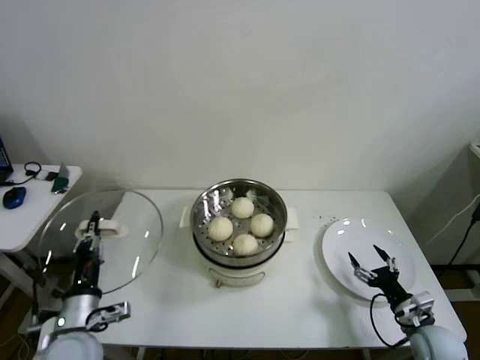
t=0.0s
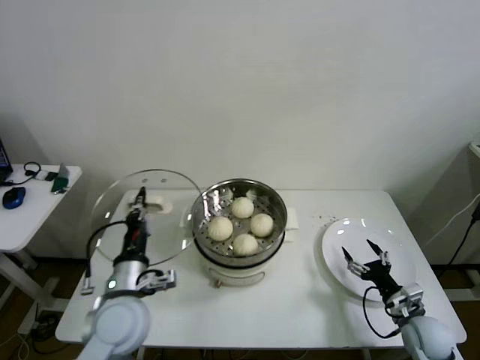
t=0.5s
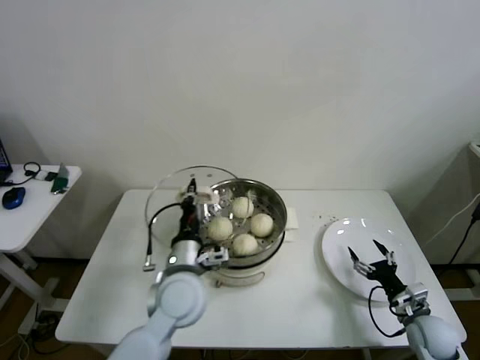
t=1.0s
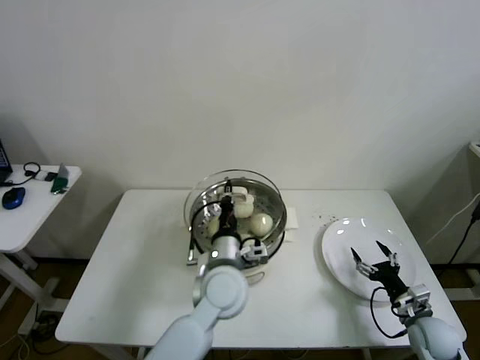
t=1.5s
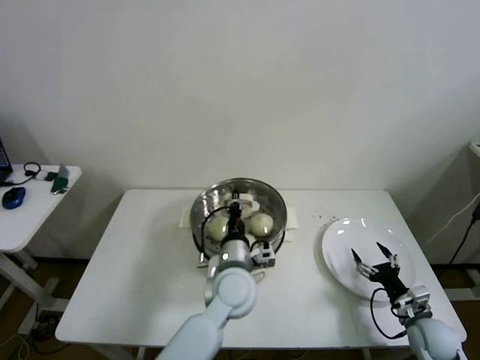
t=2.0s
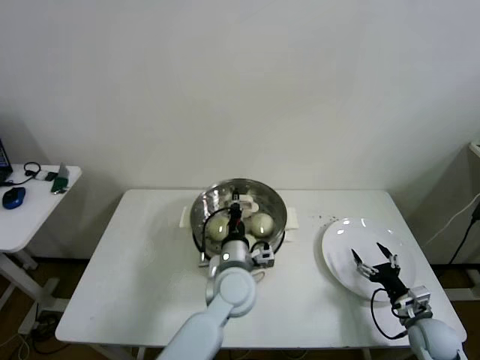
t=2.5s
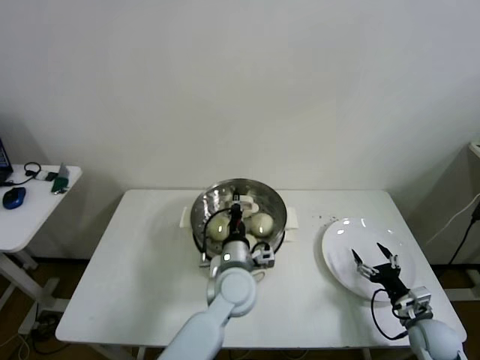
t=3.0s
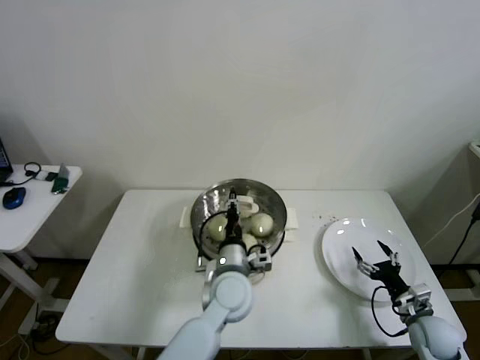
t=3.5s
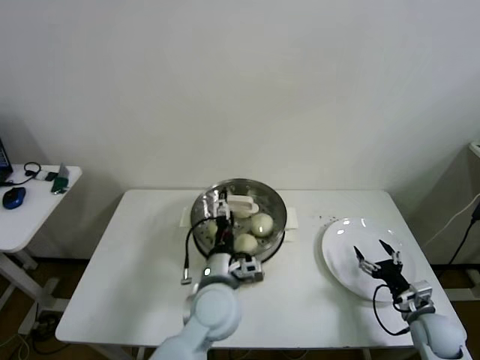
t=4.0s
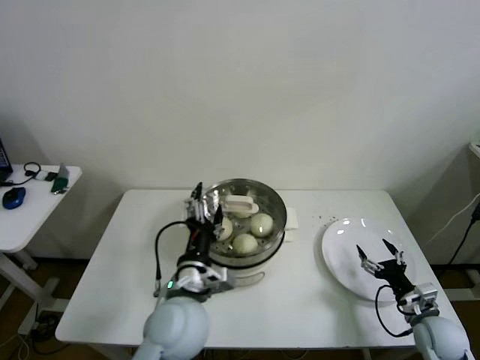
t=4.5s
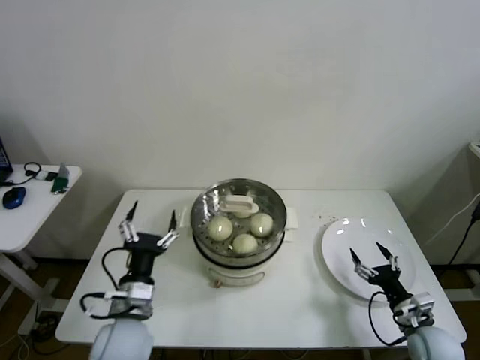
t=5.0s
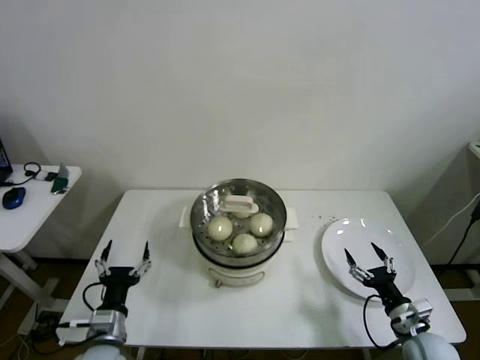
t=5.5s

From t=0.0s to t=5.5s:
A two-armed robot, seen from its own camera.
Step, from t=0.0s to t=4.0s: Place the pot lid on the steamer with left gripper.
From t=0.0s to t=2.0s: The left gripper is displaced to the right and forward by about 30 cm.
From t=2.0s to t=3.5s: There are only small adjustments of the grippers.
From t=3.5s to t=5.5s: The right gripper moves some 5 cm, while the left gripper goes about 30 cm to the left and backward, and opens up.

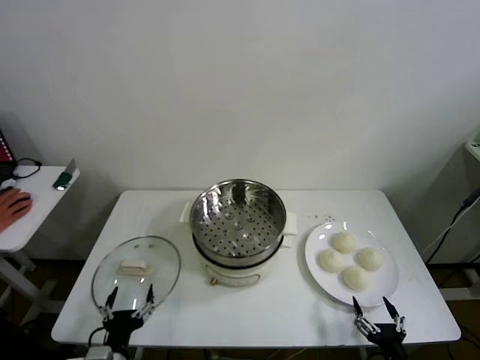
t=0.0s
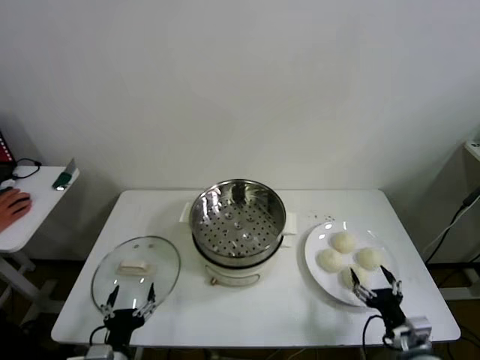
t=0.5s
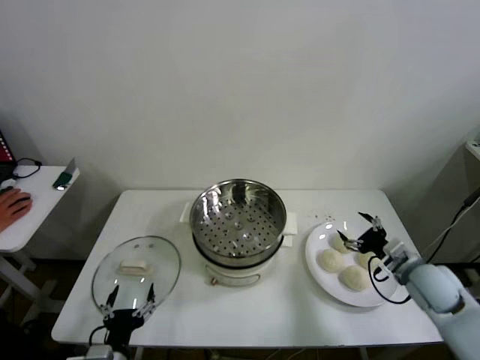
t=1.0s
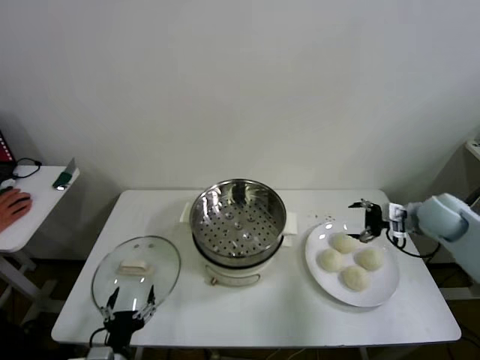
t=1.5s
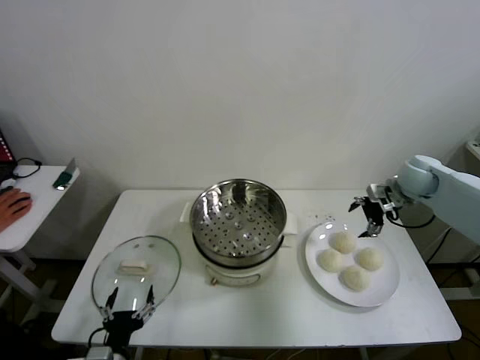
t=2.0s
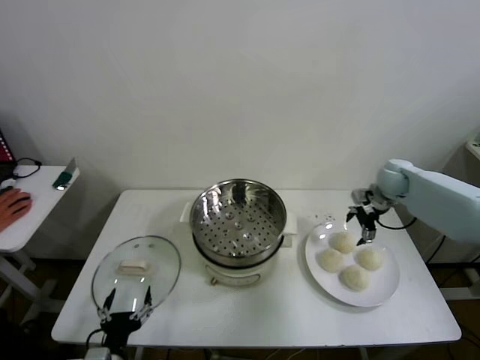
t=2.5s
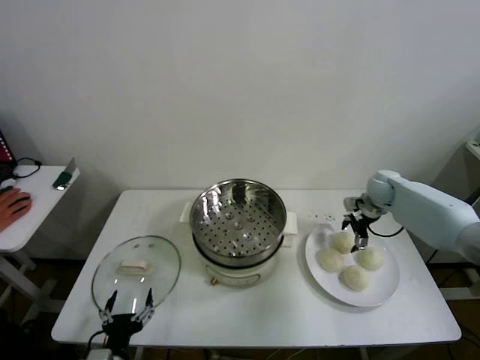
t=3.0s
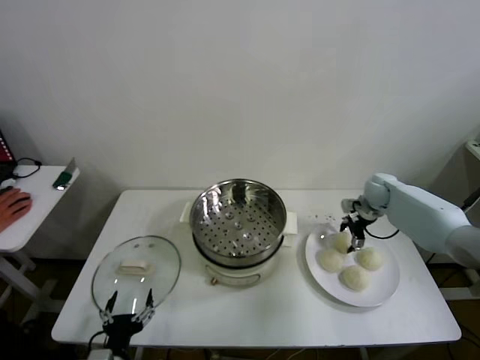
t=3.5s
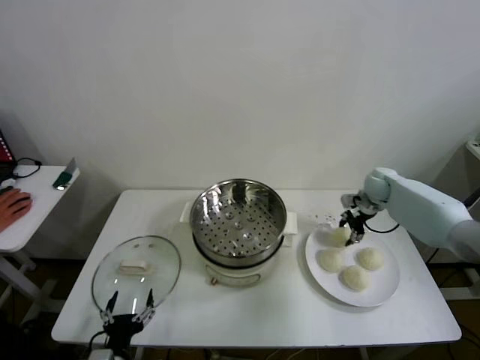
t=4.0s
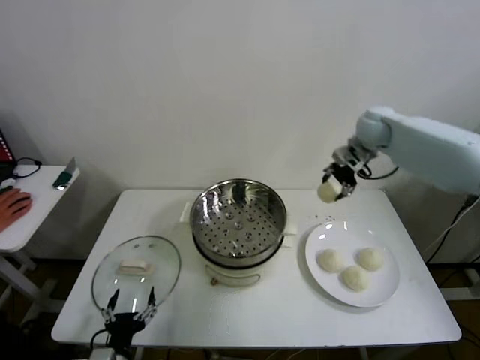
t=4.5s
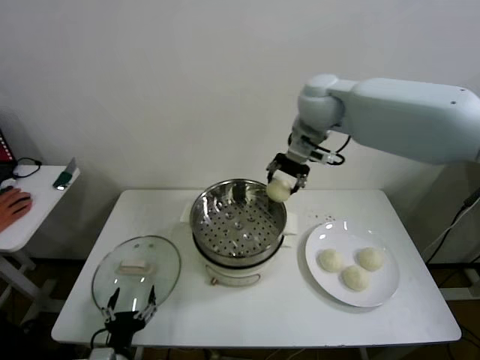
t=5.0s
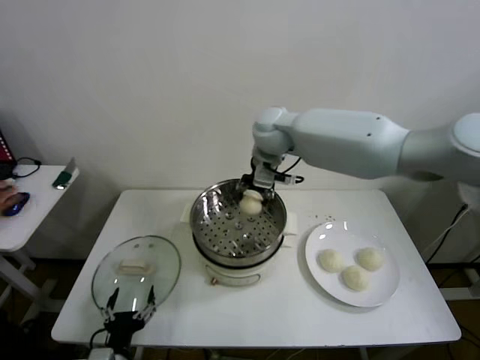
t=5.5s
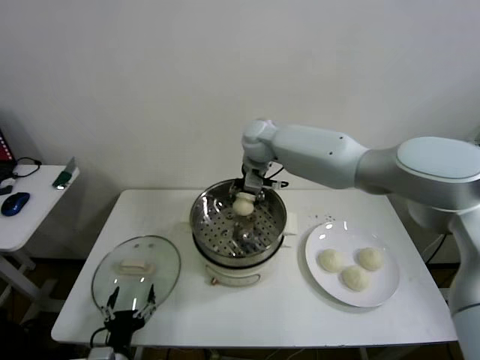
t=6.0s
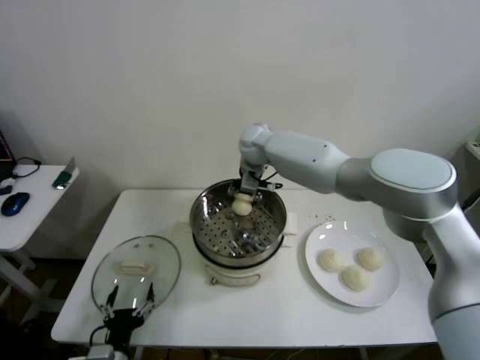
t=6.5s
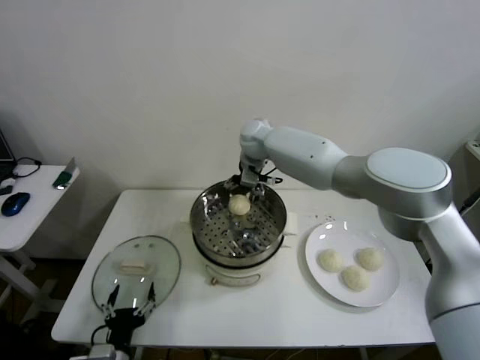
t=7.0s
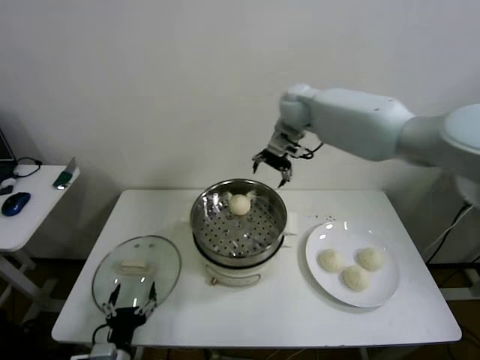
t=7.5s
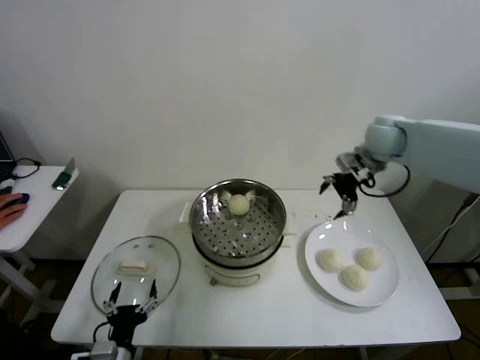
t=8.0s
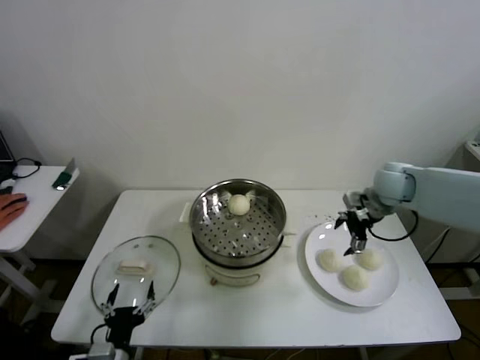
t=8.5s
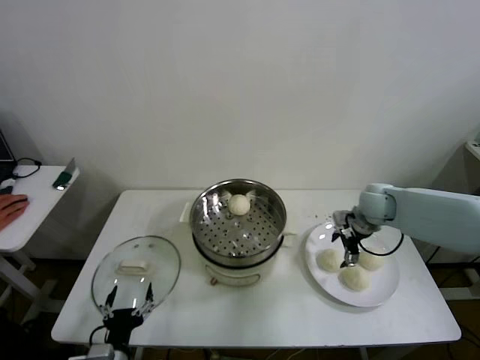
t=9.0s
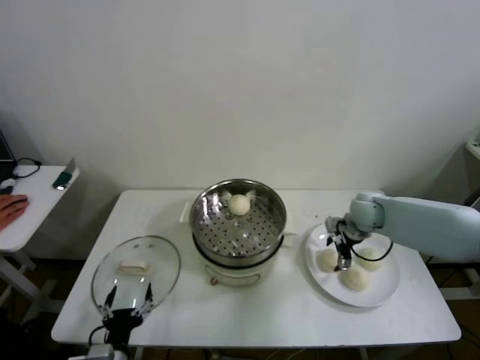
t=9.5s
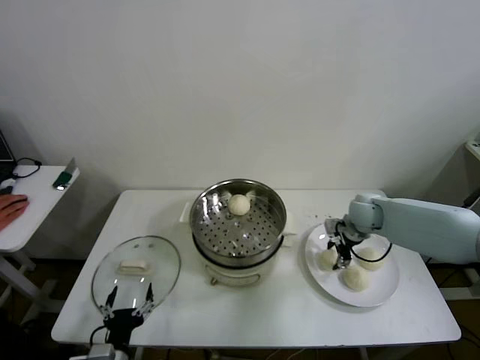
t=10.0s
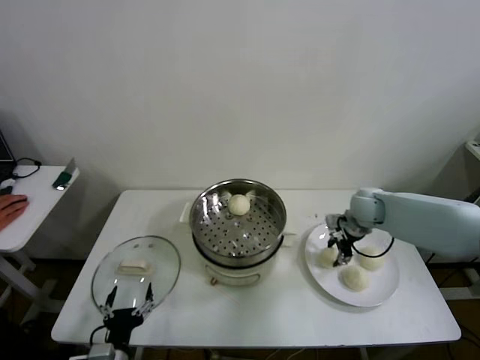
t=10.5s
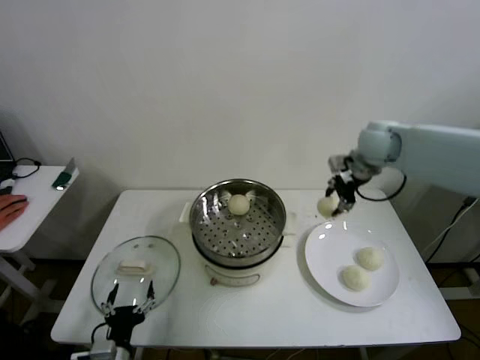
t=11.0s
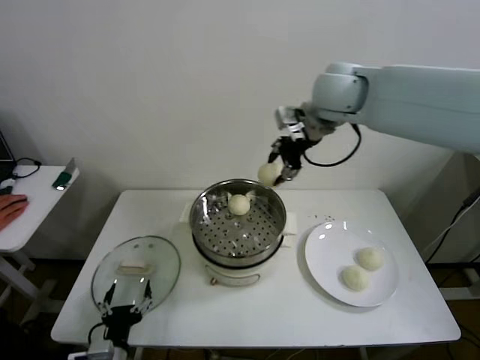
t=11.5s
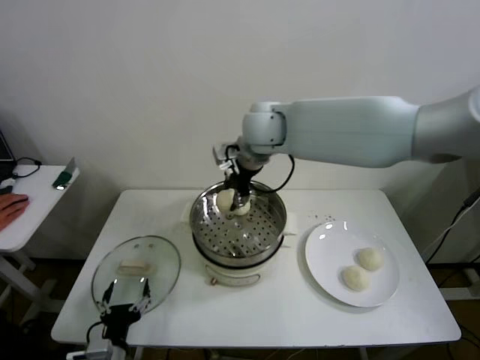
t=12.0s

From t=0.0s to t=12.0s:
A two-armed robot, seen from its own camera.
Step, from t=0.0s to t=3.5s: Grasp the baozi in the plate with right gripper.
Step, from t=4.0s to t=6.5s: Place the baozi on the steamer with right gripper.
Step, from t=7.0s to t=10.0s: Grasp the baozi in the plate with right gripper.
From t=2.0s to t=4.0s: The right gripper shifts approximately 10 cm downward and forward, and closes.
From t=4.0s to t=6.0s: The right gripper travels to the left by some 35 cm.
From t=6.0s to t=8.0s: The right gripper travels to the right by approximately 30 cm, and opens.
From t=8.0s to t=10.0s: The right gripper is displaced downward by about 20 cm, and closes up.
From t=10.0s to t=12.0s: The right gripper shifts some 35 cm to the left and upward.

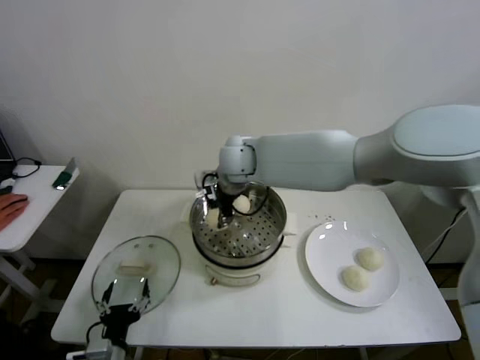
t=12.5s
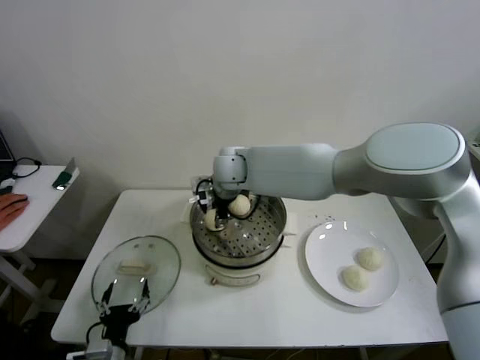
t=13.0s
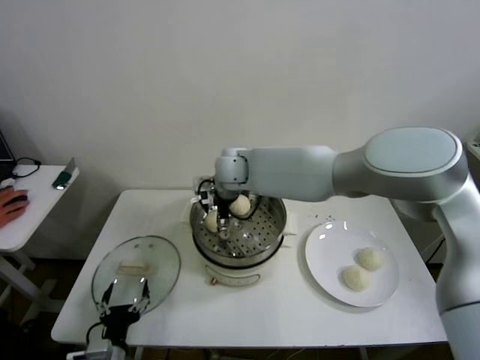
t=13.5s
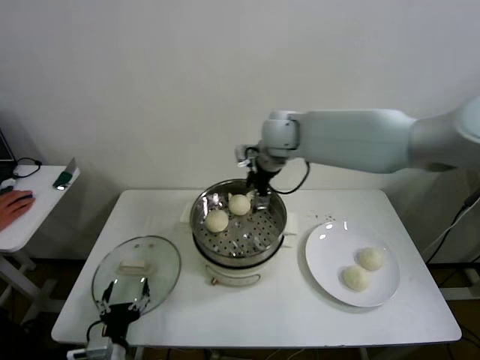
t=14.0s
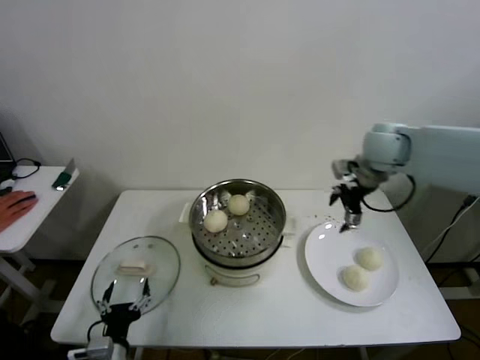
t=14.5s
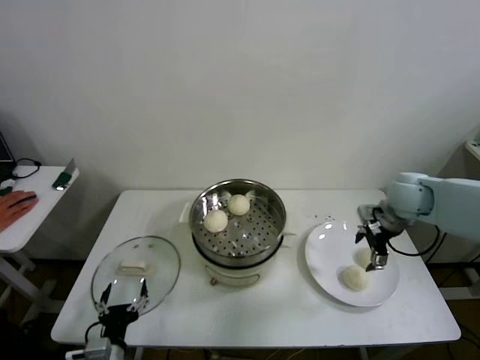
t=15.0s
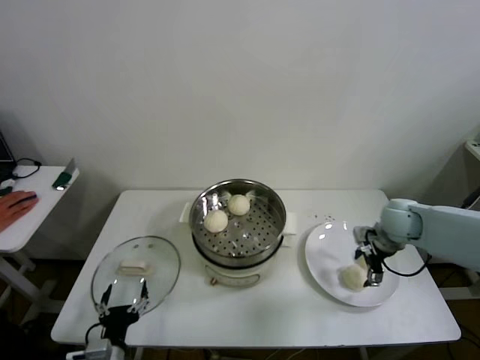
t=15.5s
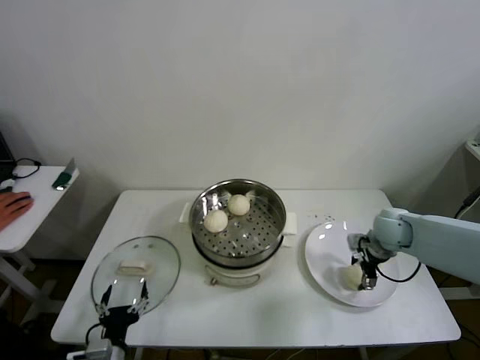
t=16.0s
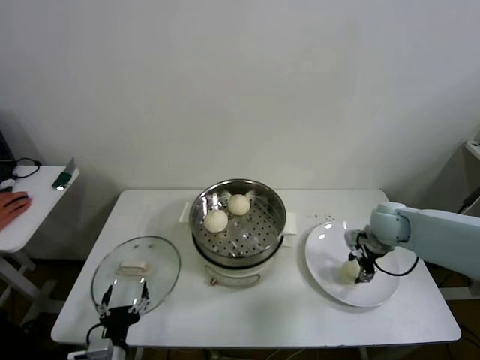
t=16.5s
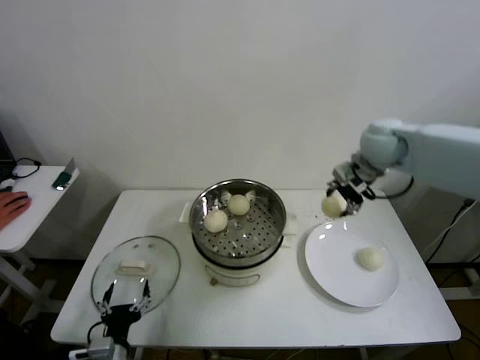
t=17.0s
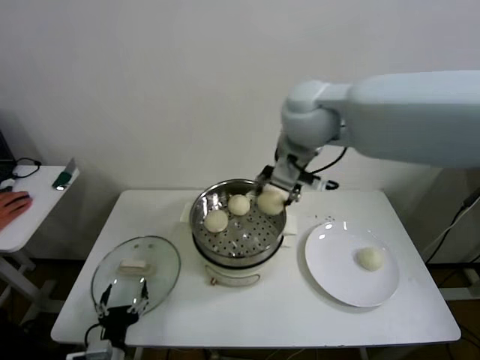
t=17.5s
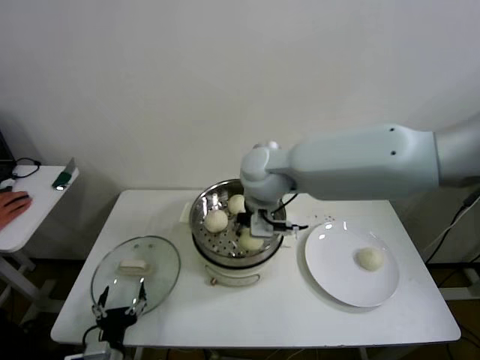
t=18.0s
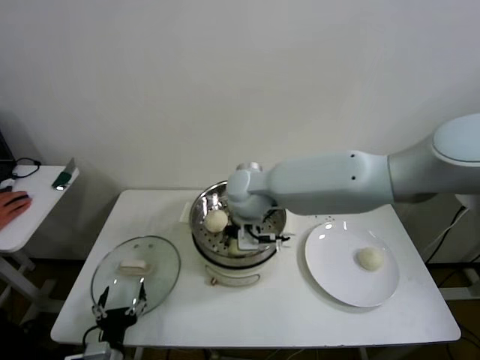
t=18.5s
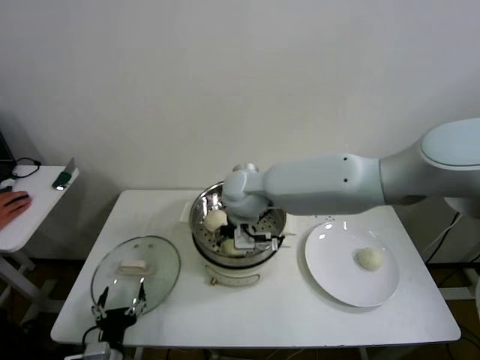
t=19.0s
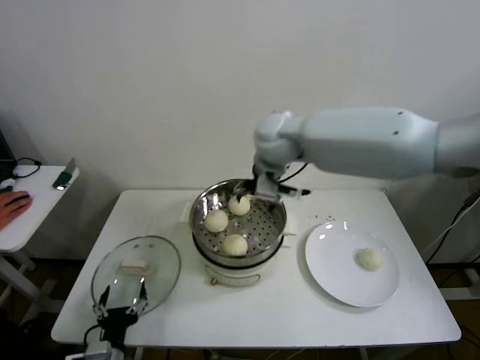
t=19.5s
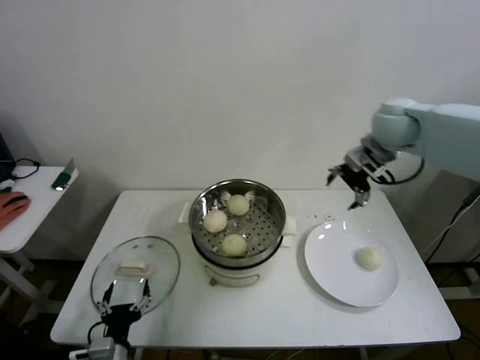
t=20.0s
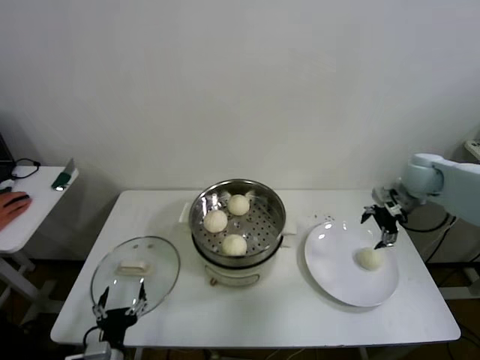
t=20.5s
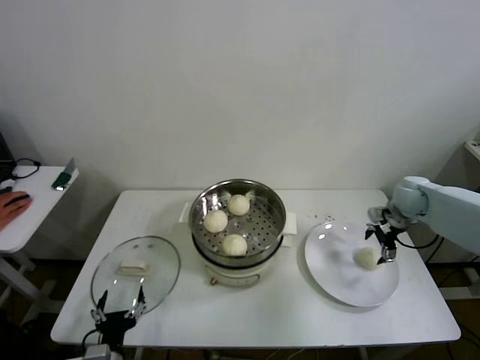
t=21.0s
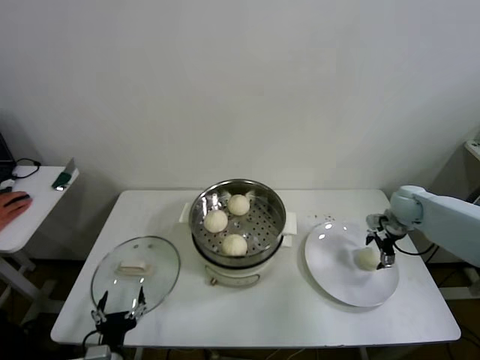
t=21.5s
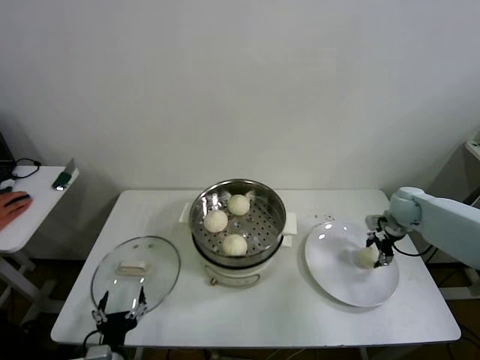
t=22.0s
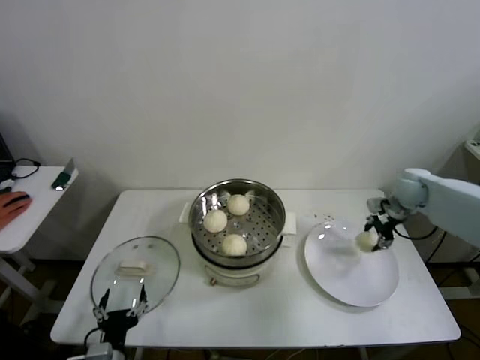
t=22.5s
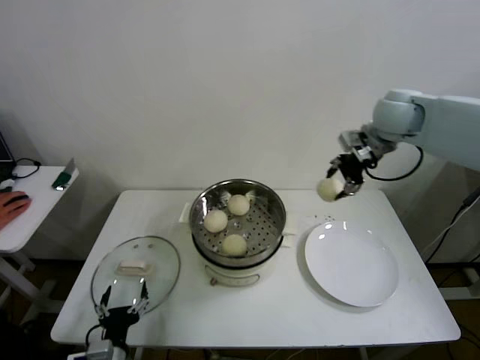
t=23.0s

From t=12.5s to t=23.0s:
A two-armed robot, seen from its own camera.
Step, from t=14.0s to t=16.0s: Grasp the baozi in the plate with right gripper.
Step, from t=16.5s to t=19.0s: Place the baozi on the steamer with right gripper.
Step, from t=19.5s to t=21.5s: Grasp the baozi in the plate with right gripper.
From t=12.5s to t=14.5s: The right gripper travels to the right by some 30 cm, and opens.
From t=14.5s to t=16.5s: The right gripper goes about 20 cm downward, and closes.
From t=16.5s to t=19.0s: The right gripper shifts some 35 cm to the left, and opens its fingers.
From t=19.0s to t=21.0s: The right gripper goes about 40 cm to the right.
From t=21.0s to t=23.0s: The right gripper goes approximately 25 cm upward and to the left, and closes.
